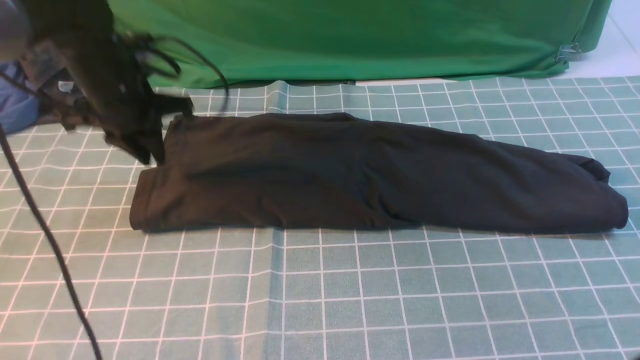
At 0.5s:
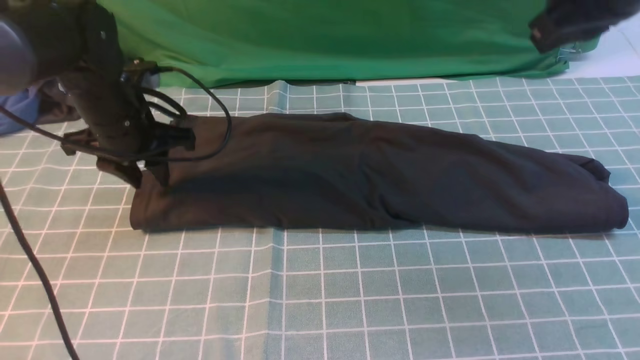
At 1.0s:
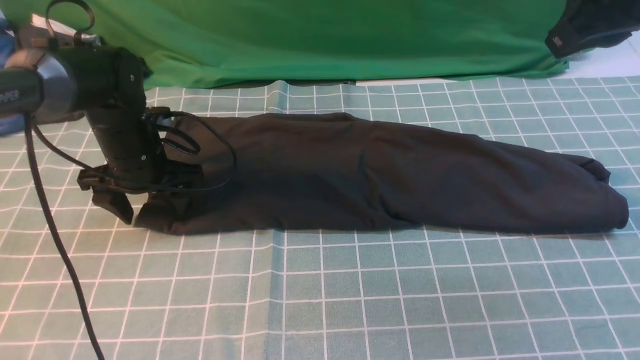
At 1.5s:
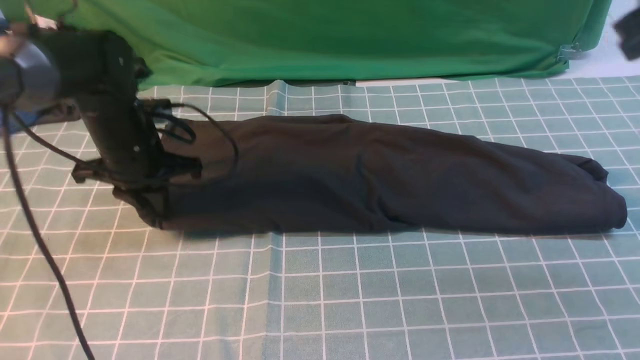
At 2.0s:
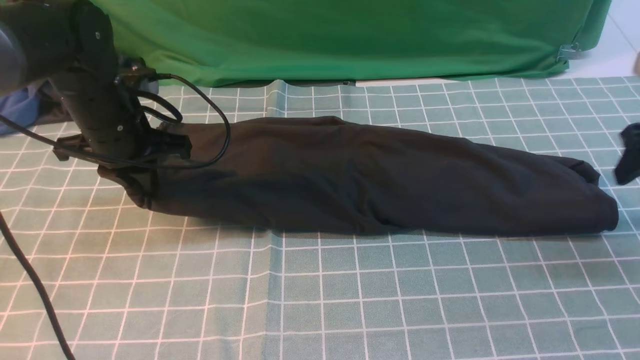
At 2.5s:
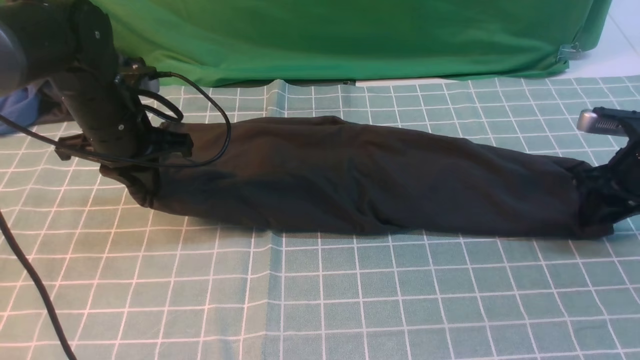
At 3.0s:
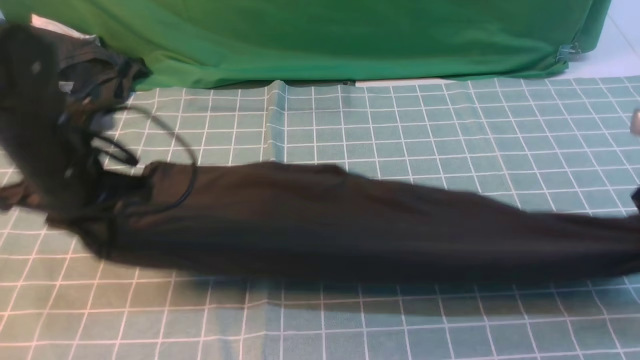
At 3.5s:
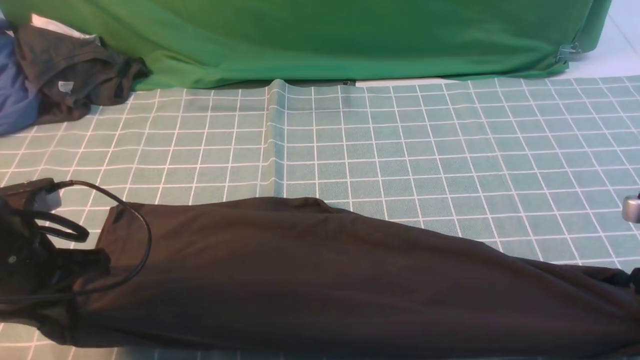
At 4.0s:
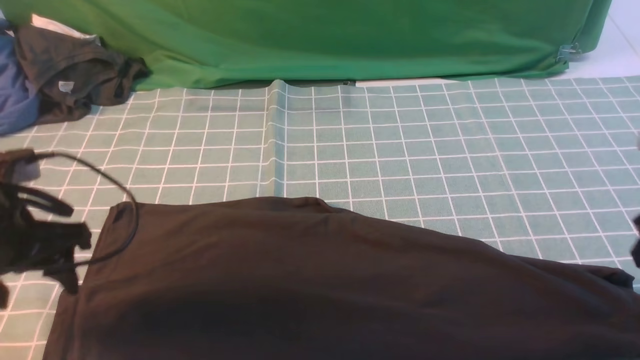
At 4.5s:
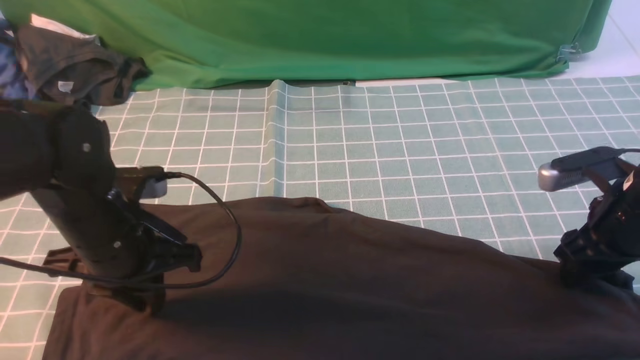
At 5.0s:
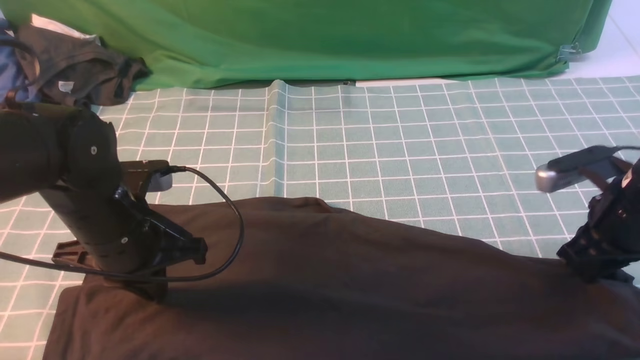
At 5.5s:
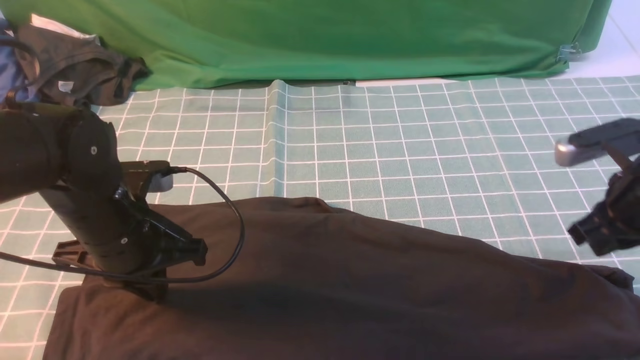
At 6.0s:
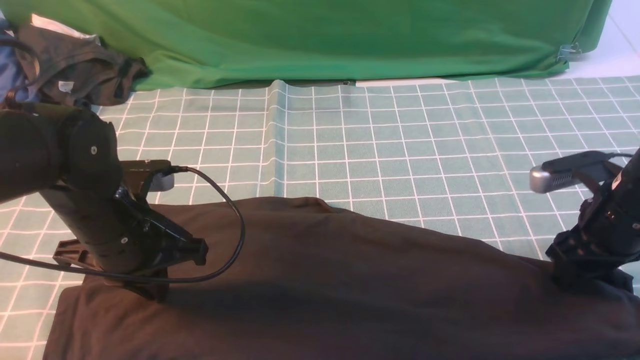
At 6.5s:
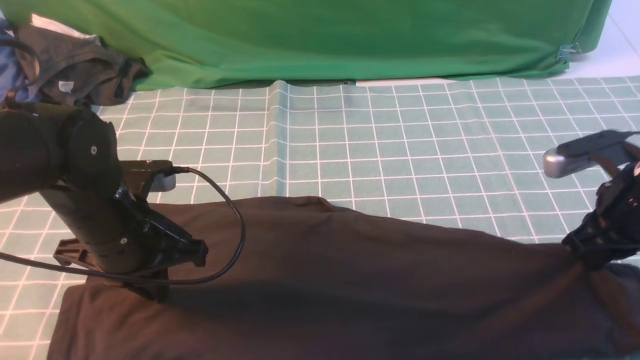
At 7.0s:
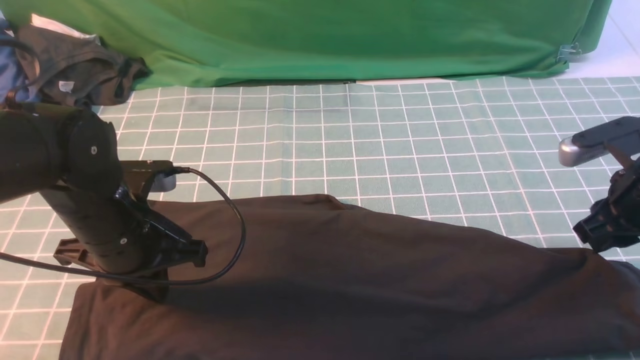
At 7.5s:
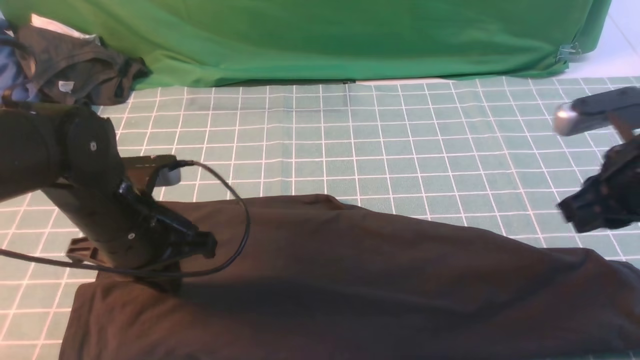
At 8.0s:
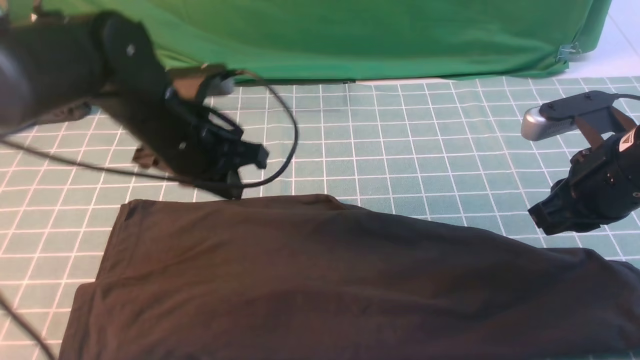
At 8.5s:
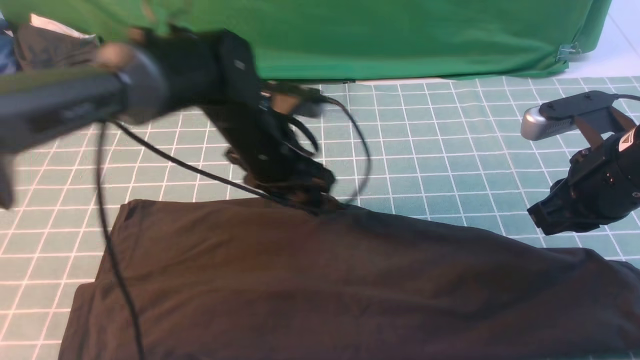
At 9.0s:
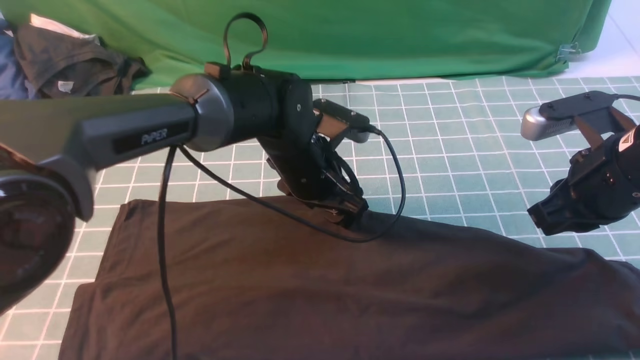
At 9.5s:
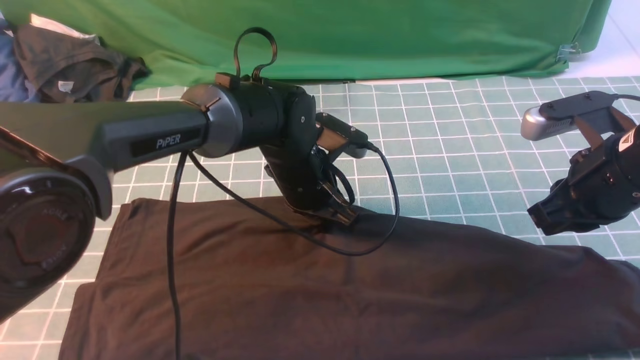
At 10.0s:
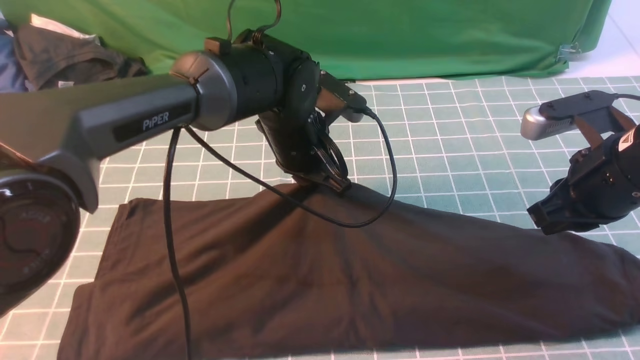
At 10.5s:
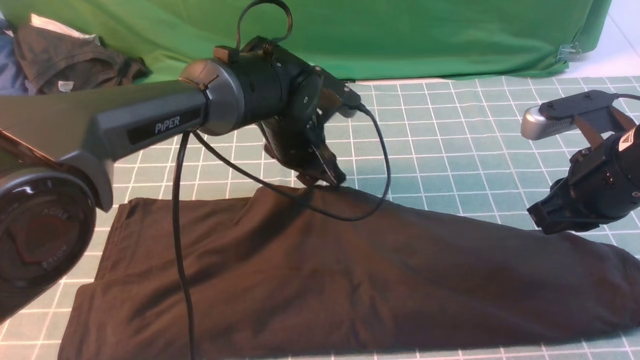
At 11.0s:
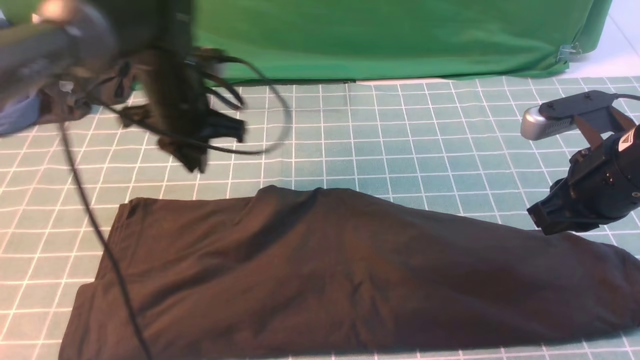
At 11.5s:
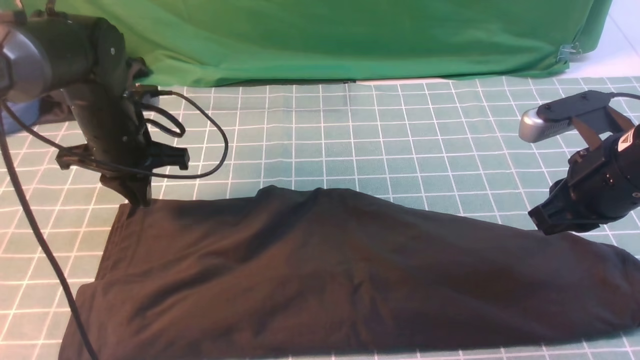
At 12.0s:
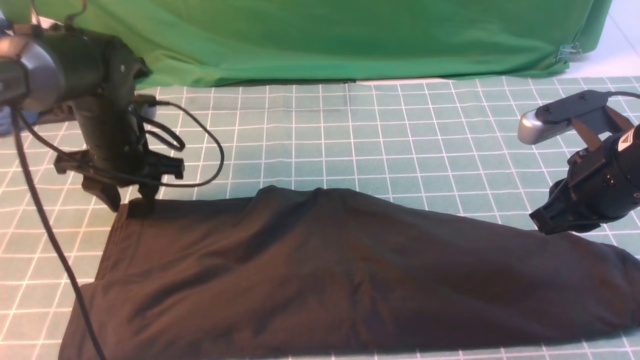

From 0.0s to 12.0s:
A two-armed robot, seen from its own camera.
From 0.0s to 2.0s: The right gripper travels to the right and downward by approximately 25 cm, and opens its fingers; the left gripper travels downward and back again, some 10 cm each way, and opens, then closes again.
From 2.0s to 4.0s: The two grippers go some 10 cm backward. The right gripper closes, then opens again. The left gripper opens up.
From 4.0s to 6.0s: The left gripper moves to the right, approximately 10 cm, and closes. The right gripper goes approximately 5 cm downward, and closes and opens again.
From 6.0s to 8.0s: The right gripper heads upward, covering some 5 cm, and closes. The left gripper heads forward and to the right, covering approximately 10 cm.
From 8.0s to 10.0s: The left gripper heads to the right, forward and downward, covering approximately 15 cm, and opens, then closes once more.
From 10.0s to 12.0s: The left gripper travels to the left by some 20 cm, and opens its fingers.

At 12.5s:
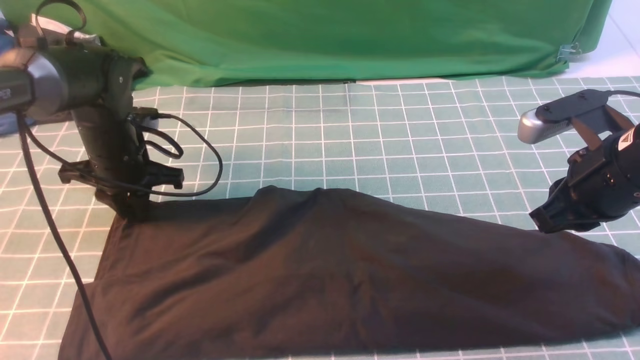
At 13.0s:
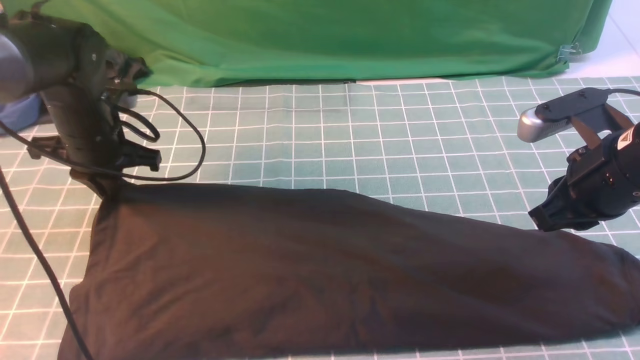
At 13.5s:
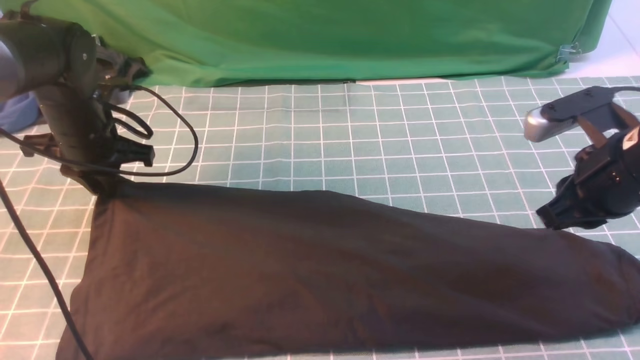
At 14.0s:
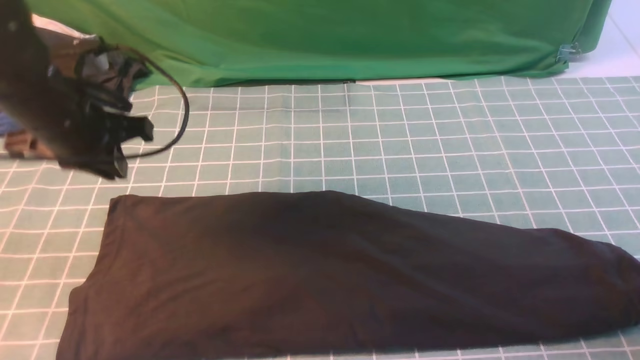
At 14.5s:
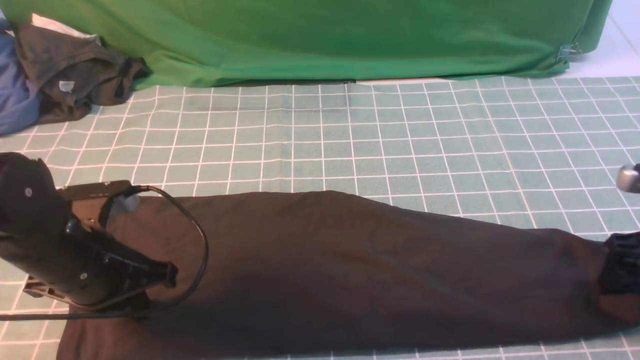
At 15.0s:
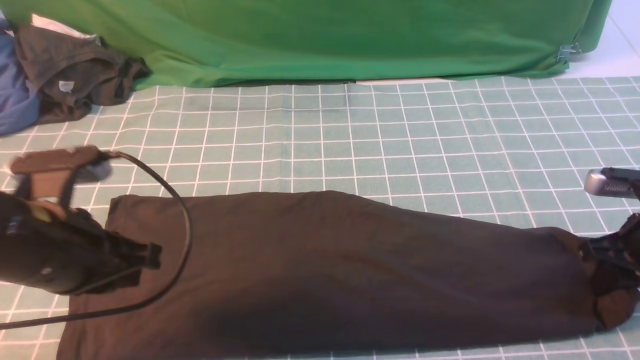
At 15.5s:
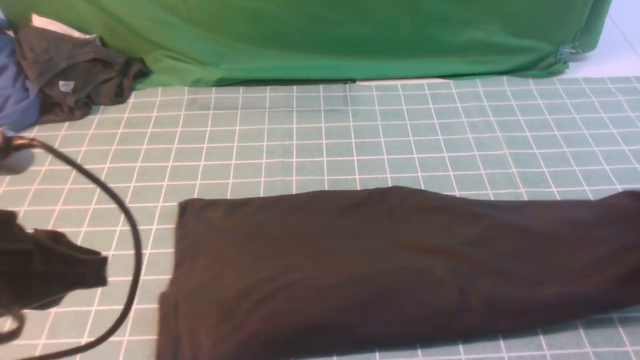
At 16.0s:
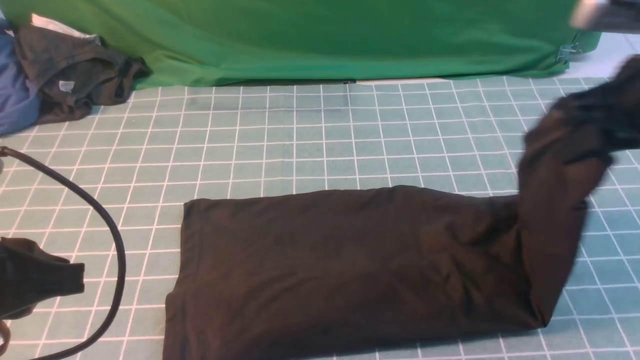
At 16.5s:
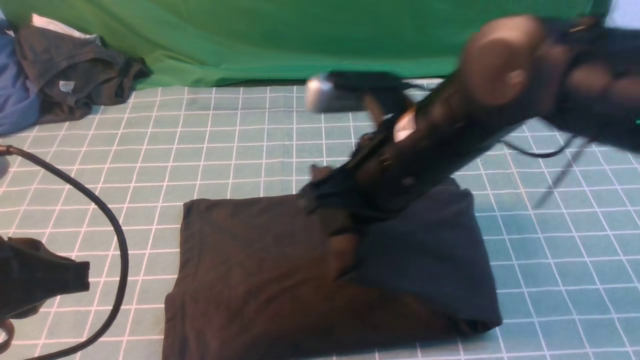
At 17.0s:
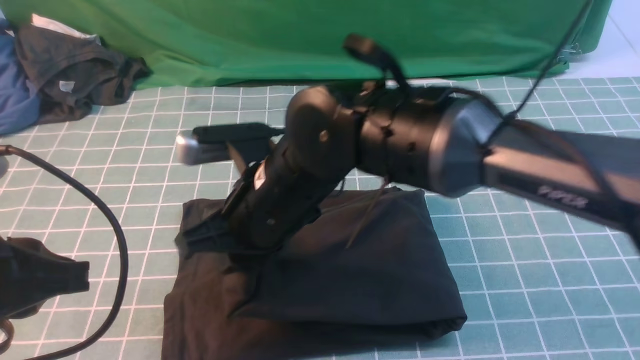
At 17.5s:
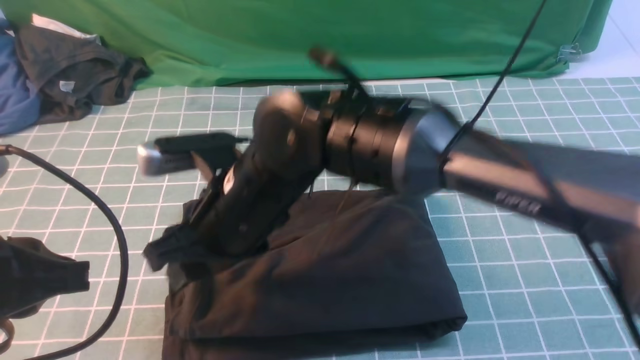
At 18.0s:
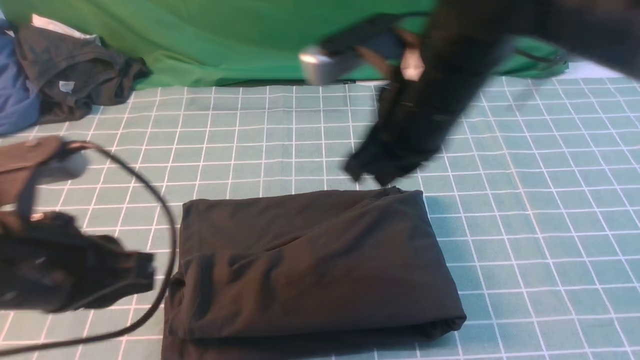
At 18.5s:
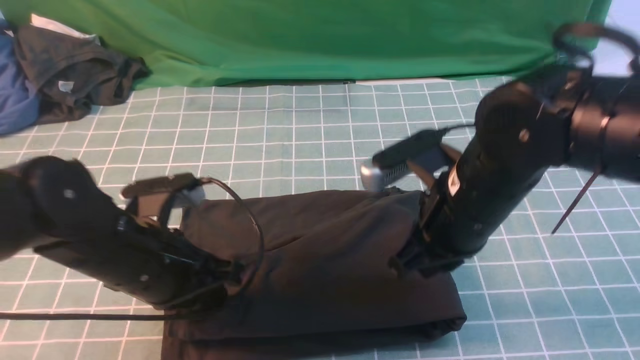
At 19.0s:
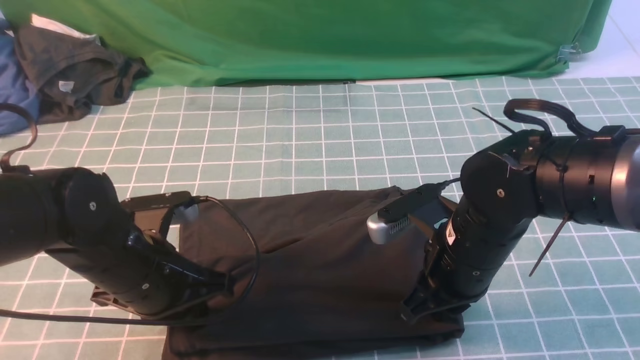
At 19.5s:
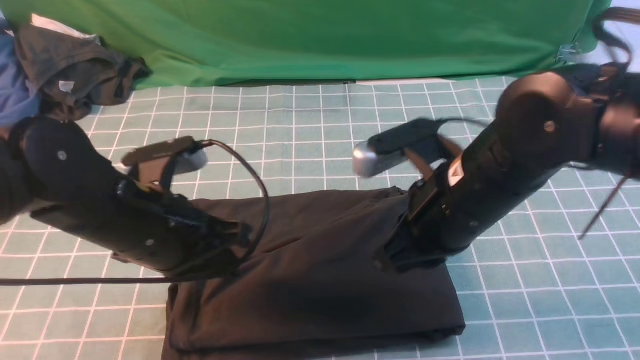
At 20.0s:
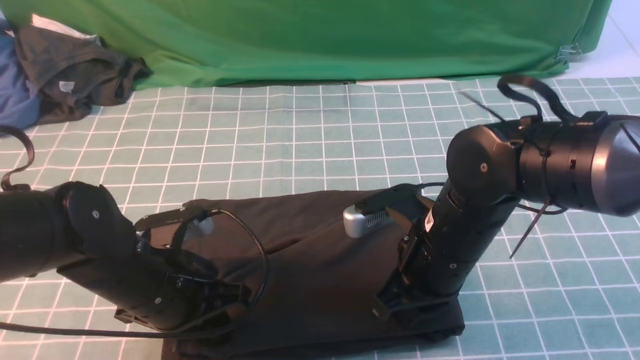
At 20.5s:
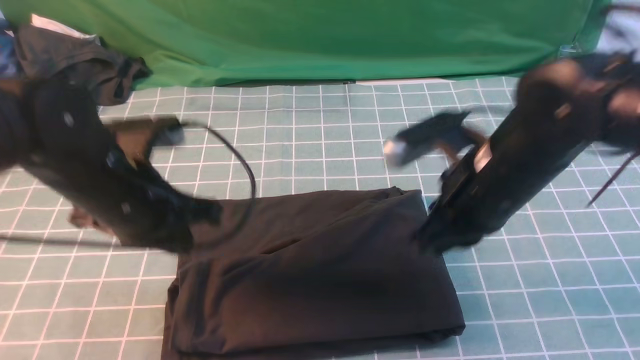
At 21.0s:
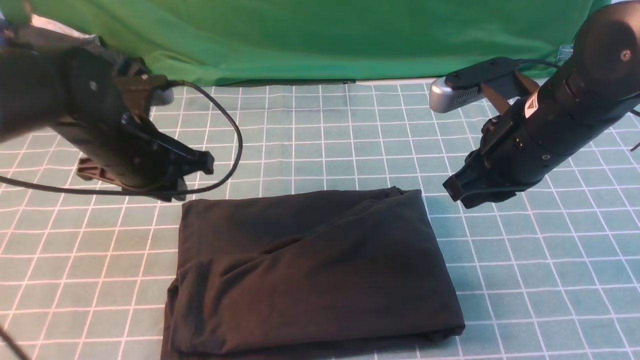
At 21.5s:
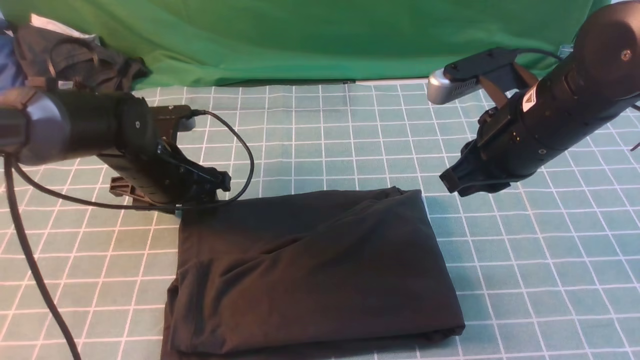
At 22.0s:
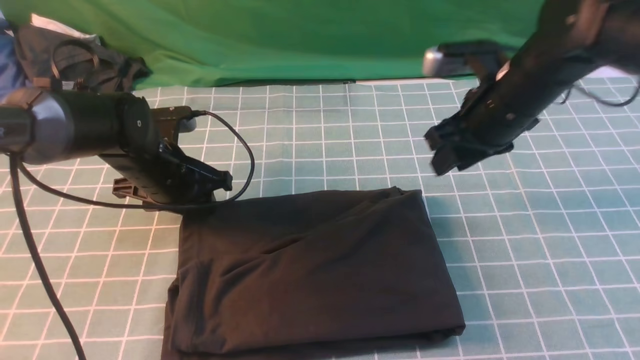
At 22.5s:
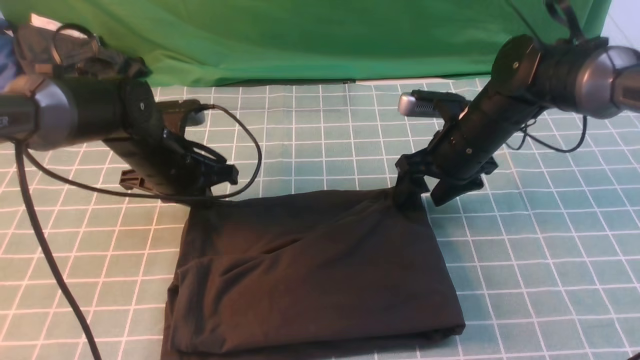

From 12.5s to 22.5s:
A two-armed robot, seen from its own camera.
Step, from 12.5s to 15.0s: use the right arm to clamp the right edge of the fabric.
Step, from 15.5s to 17.5s: use the right arm to drag the right edge of the fabric to the left and folds it over the left edge.
From 12.5s to 14.5s: The right gripper is displaced to the right and downward by about 15 cm, and opens its fingers; the left gripper travels backward by roughly 15 cm.
From 14.5s to 16.5s: The left gripper moves upward and backward, about 15 cm. The right gripper is displaced to the left by about 30 cm, and closes.
From 16.5s to 18.5s: The right gripper shifts about 10 cm downward and to the right, and opens, then closes once more. The left gripper travels downward, forward and to the right by about 15 cm.
From 18.5s to 20.5s: The left gripper ends up approximately 5 cm from where it was. The right gripper moves up and down over about 5 cm, changing direction 3 times.
From 20.5s to 22.5s: Both grippers travel together forward and downward, roughly 15 cm. The left gripper opens, then closes again. Meanwhile the right gripper opens up.
